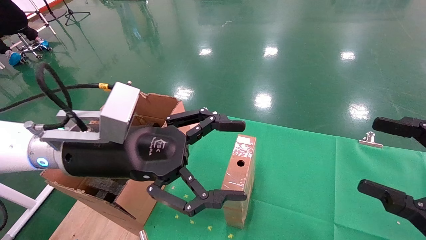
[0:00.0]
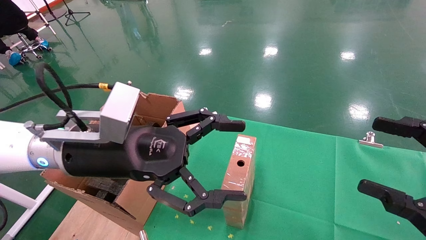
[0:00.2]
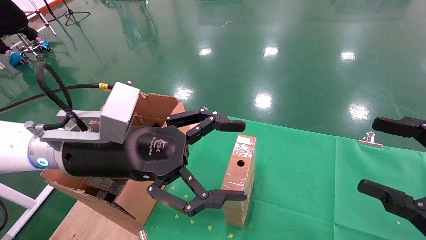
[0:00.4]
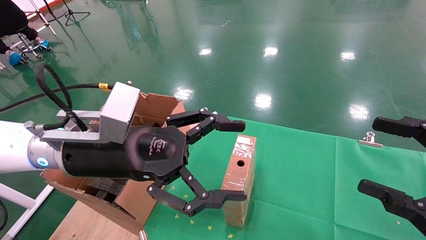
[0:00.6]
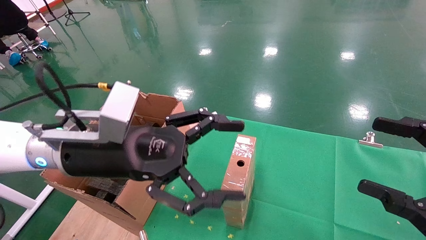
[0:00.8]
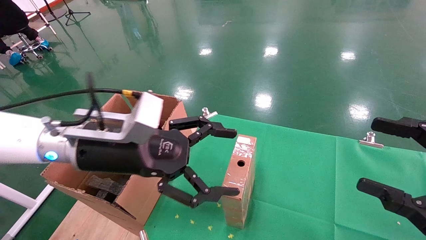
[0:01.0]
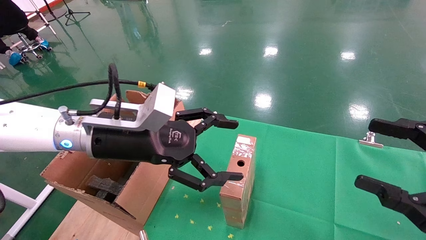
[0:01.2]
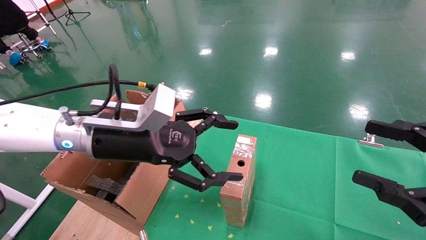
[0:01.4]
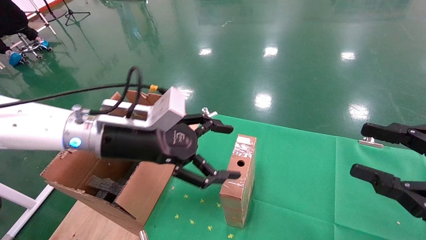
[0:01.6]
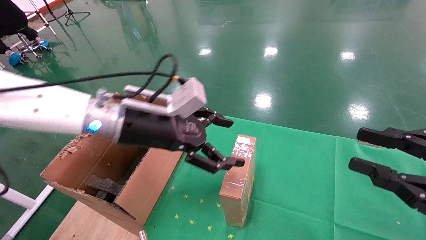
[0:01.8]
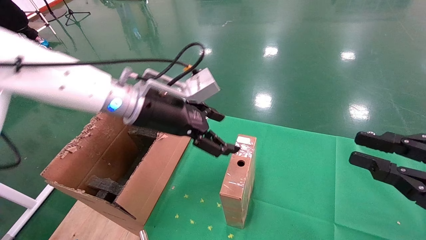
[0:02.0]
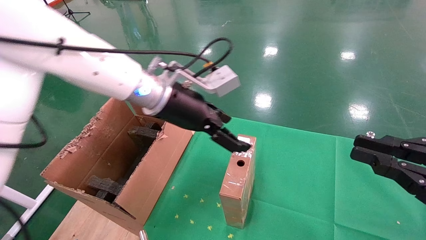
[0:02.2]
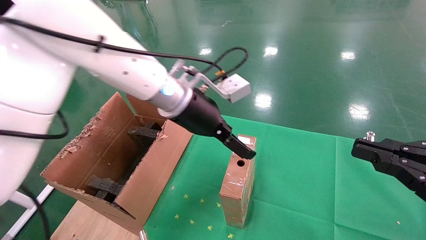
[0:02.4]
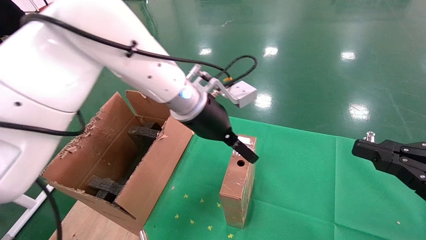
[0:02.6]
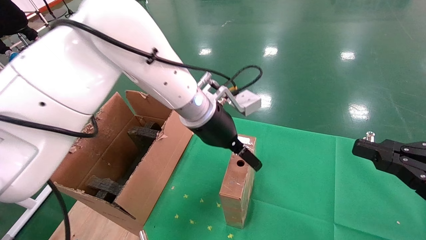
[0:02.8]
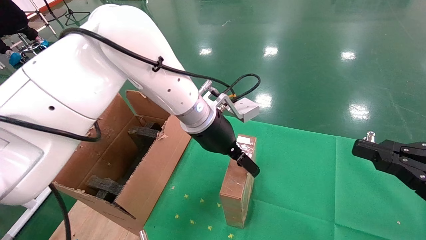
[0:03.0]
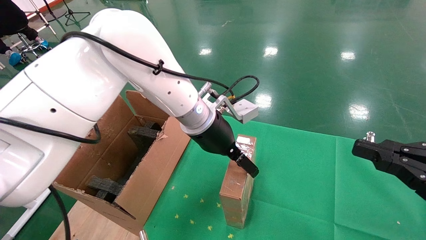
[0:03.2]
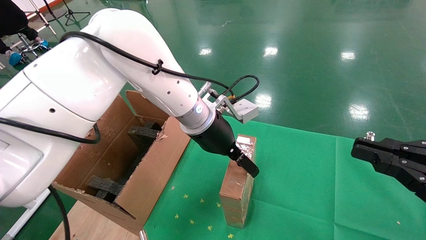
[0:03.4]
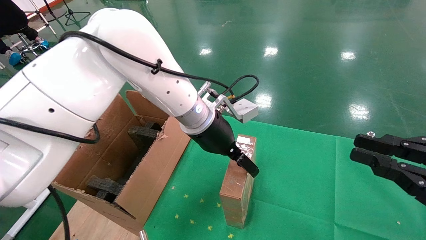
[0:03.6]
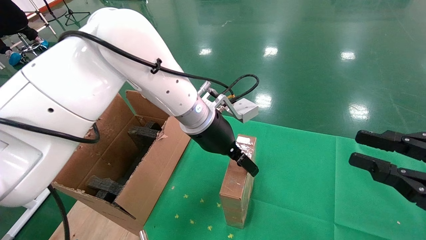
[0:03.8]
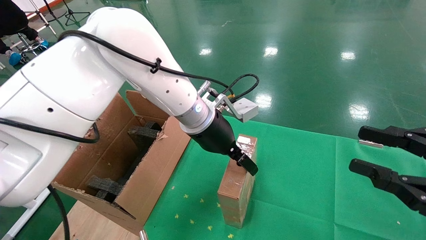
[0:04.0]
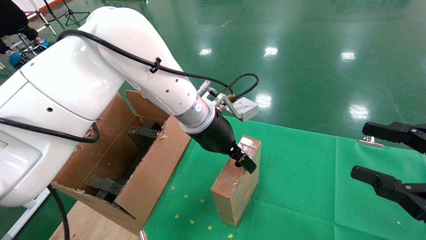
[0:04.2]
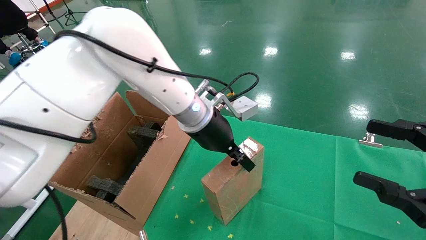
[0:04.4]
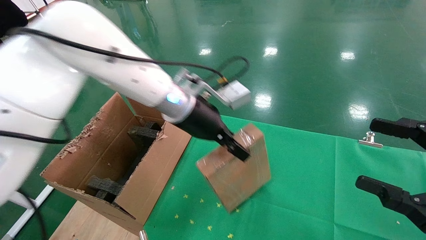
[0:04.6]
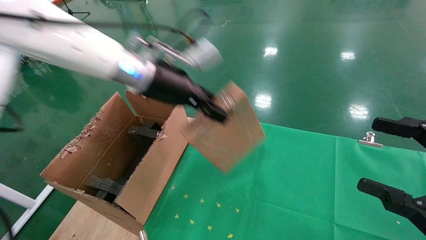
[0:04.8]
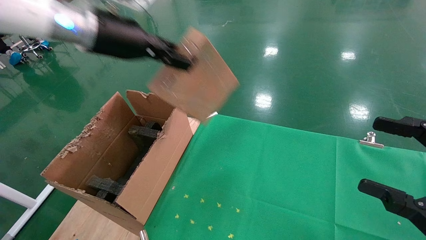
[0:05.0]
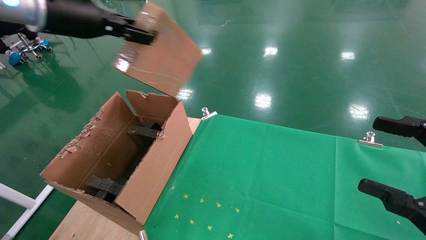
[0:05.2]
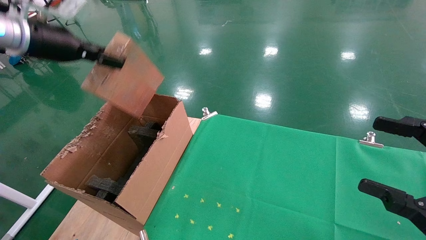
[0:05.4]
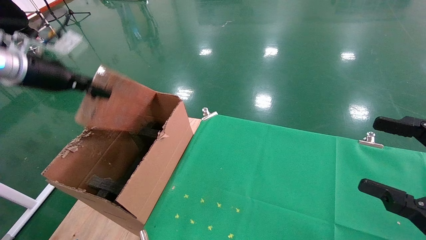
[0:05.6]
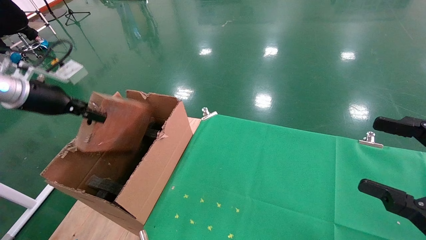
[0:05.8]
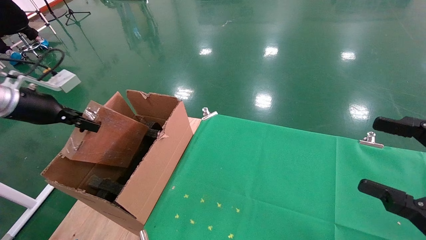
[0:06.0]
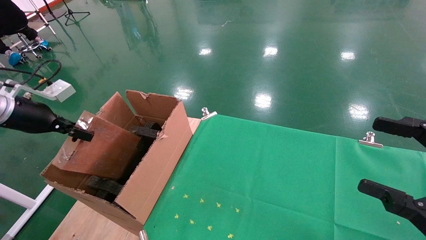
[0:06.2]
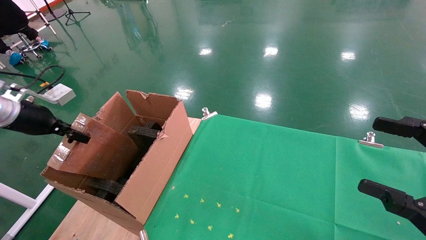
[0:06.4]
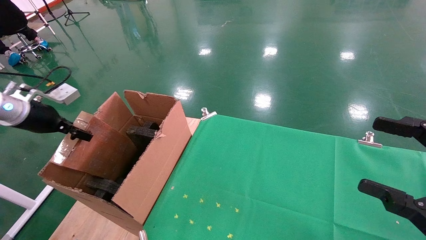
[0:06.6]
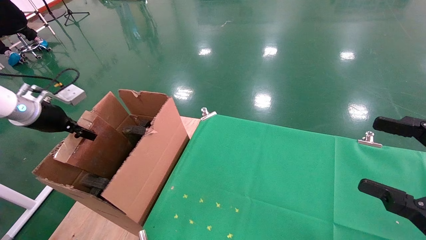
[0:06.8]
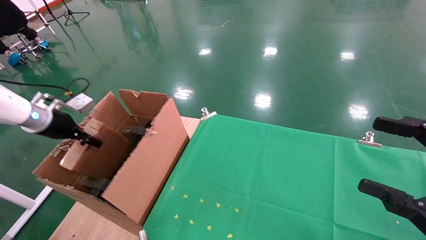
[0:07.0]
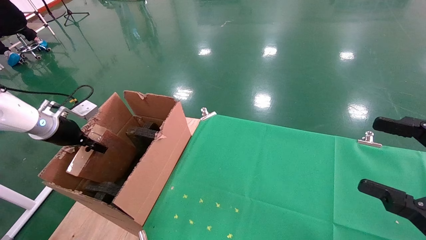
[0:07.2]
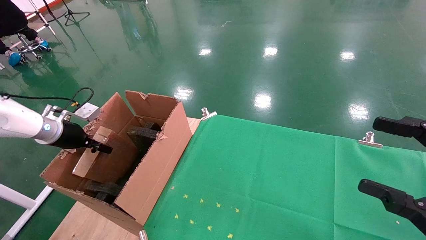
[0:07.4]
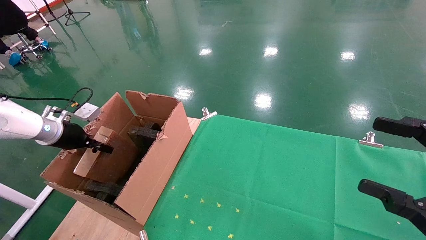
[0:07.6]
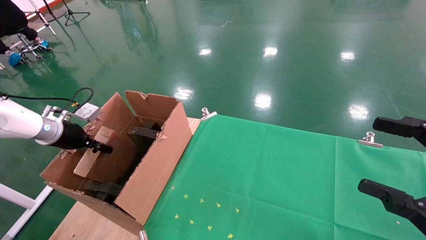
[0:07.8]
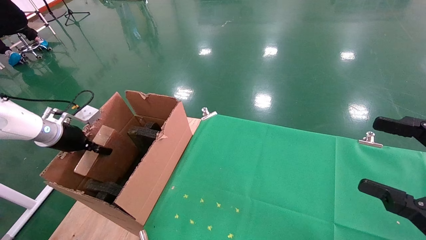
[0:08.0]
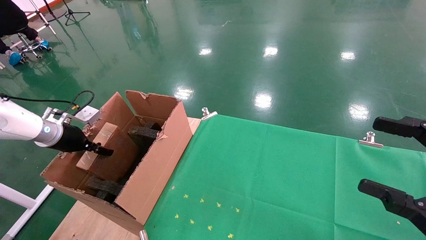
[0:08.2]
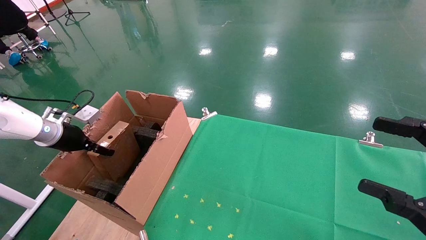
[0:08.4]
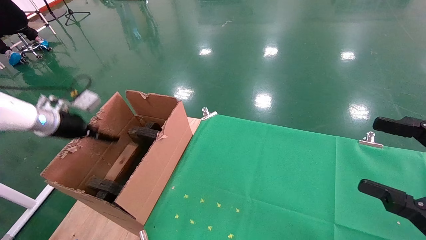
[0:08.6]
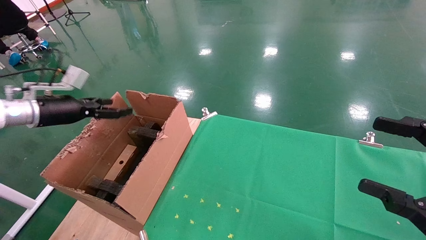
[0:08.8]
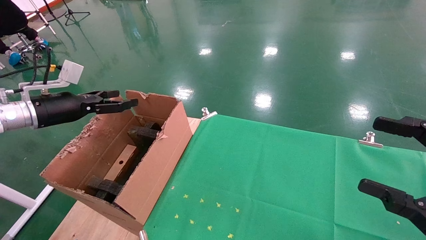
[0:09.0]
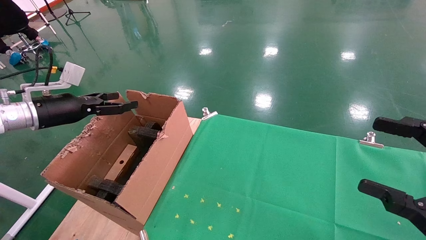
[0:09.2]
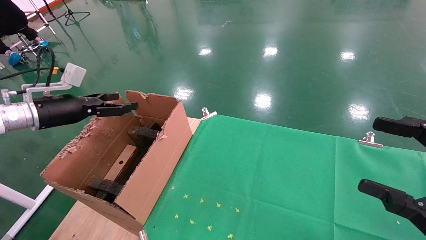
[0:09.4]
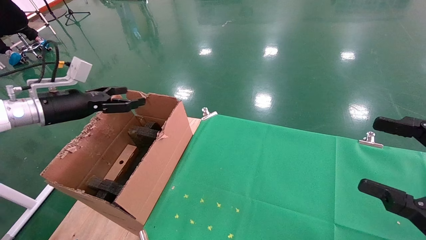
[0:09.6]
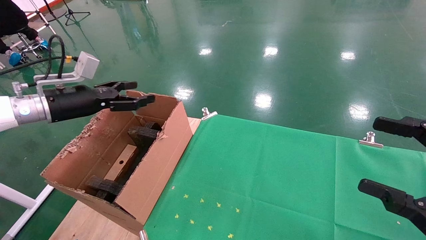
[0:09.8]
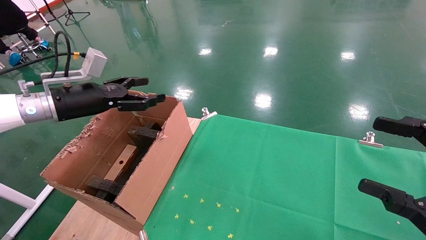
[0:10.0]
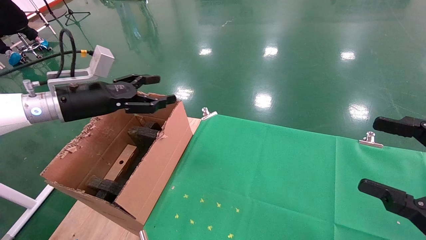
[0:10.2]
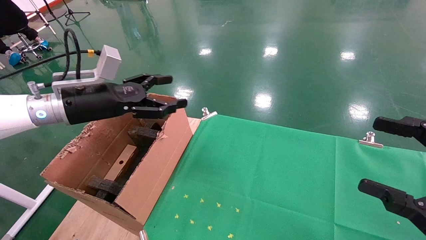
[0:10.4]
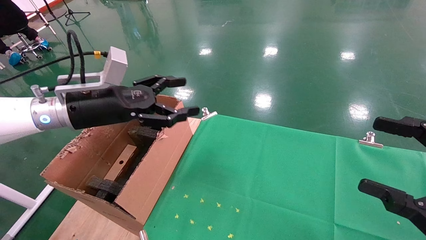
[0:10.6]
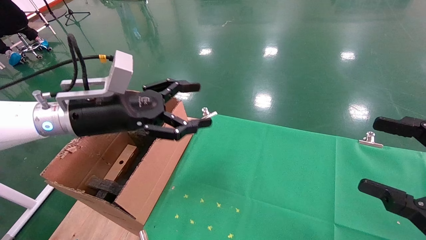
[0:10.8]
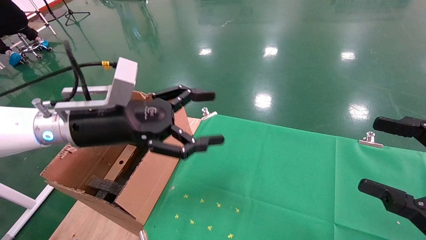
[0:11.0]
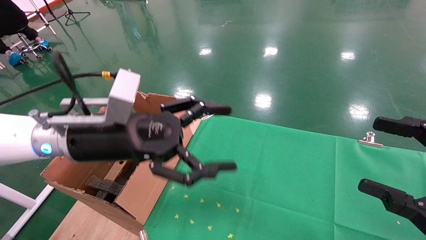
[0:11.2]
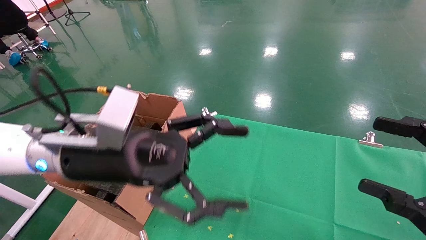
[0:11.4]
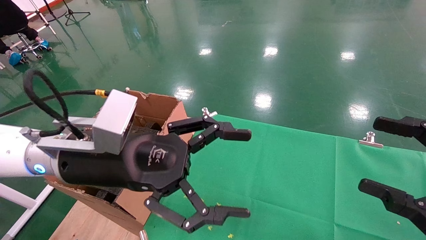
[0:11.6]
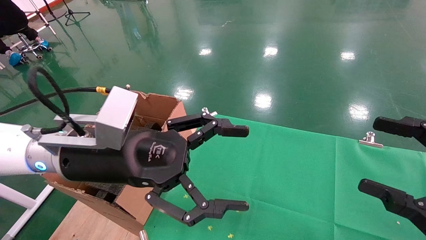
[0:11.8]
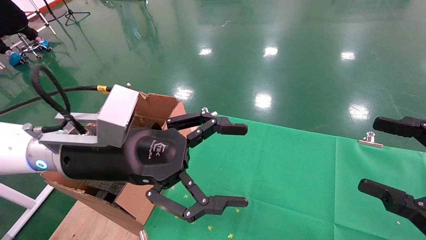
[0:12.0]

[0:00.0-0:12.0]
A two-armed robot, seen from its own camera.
Task of the whole recording: using a robotic arm to pick up a cardboard box and palace it the carton.
Step, 0:01.2 to 0:04.4: Pick up the mouse and the power cord paper box.
Step, 0:04.6 to 0:08.4: Place the mouse and the power cord paper box into the container.
0:00.0 to 0:01.6: The right gripper closes, while the left gripper moves forward, roughly 5 cm.
0:01.6 to 0:03.0: The right gripper closes, while the left gripper heads to the right and forward, covering roughly 15 cm.
0:03.0 to 0:04.4: The left gripper closes its fingers. The right gripper opens up.
0:04.4 to 0:06.0: The left gripper goes roughly 40 cm to the left, and closes.
0:06.0 to 0:07.6: The left gripper is displaced downward and forward by approximately 10 cm.
0:07.6 to 0:09.0: The left gripper moves upward, some 5 cm, and opens.
0:09.0 to 0:10.4: The left gripper shifts roughly 10 cm to the right.
0:10.4 to 0:12.0: The left gripper goes approximately 15 cm to the right and backward.

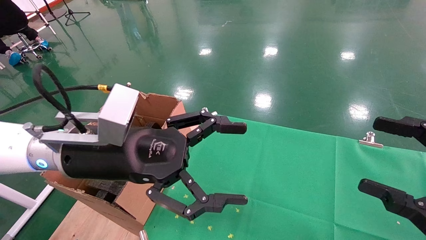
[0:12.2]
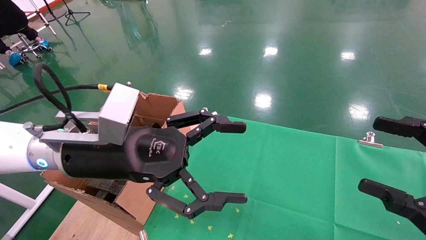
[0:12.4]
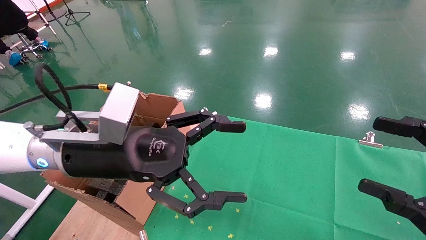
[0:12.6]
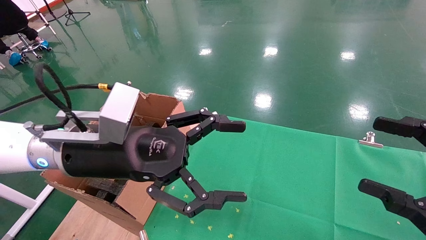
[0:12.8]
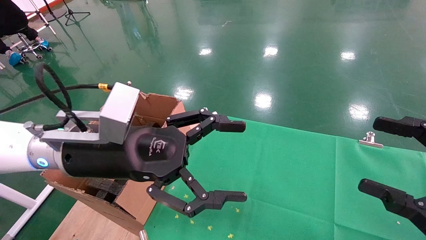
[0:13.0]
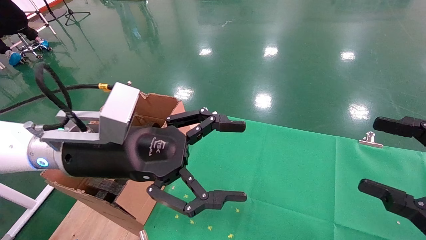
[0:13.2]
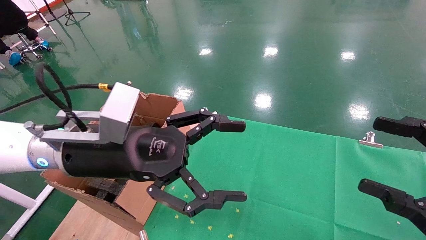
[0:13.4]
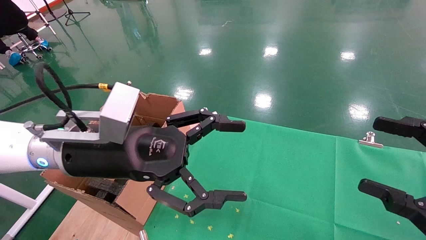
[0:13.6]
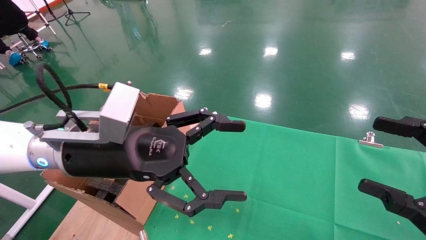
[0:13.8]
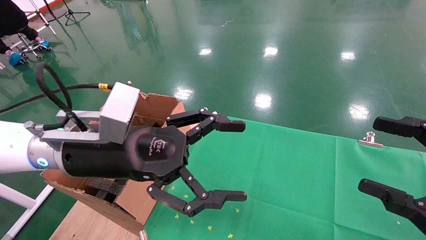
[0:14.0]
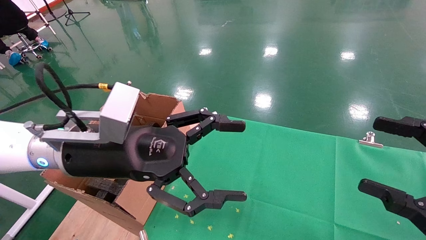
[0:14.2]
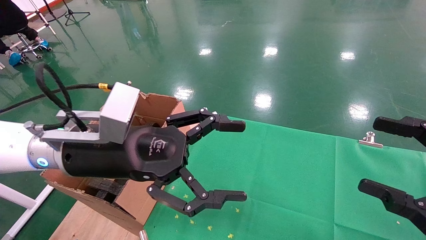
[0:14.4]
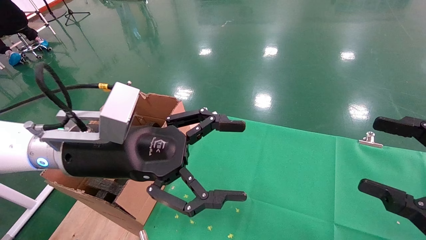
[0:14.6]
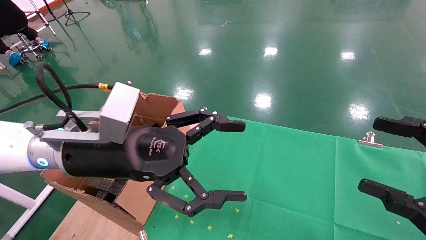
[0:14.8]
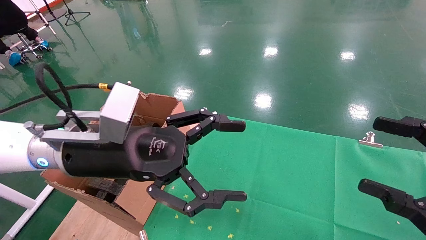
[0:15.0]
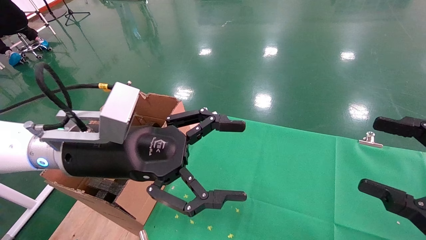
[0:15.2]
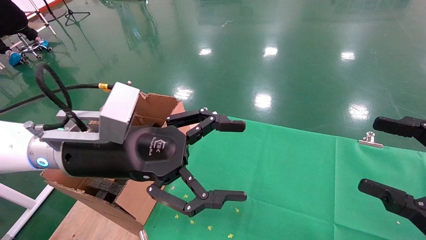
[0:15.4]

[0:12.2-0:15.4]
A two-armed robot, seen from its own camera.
Task of the whole recording: using a robotic arm to pick up a cardboard box and palace it the carton.
0:12.2 to 0:15.4: The two grippers keep their place.
